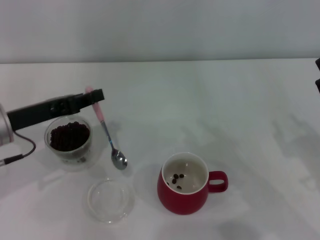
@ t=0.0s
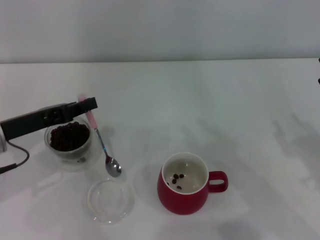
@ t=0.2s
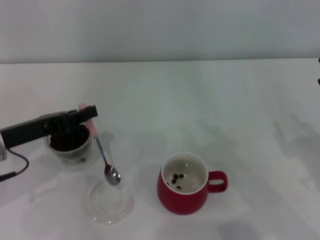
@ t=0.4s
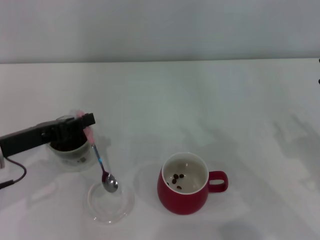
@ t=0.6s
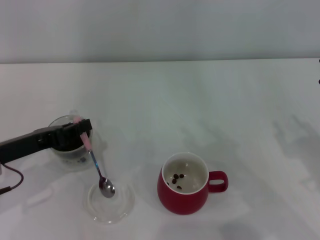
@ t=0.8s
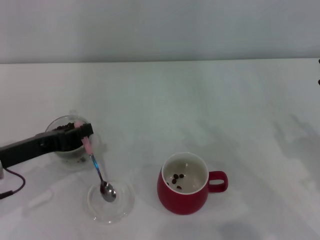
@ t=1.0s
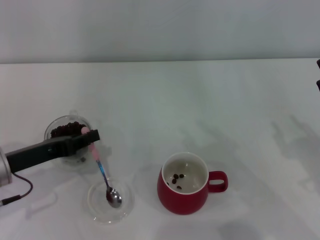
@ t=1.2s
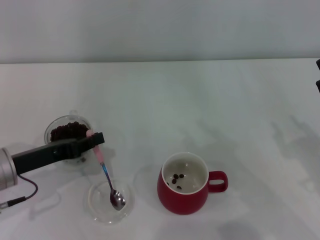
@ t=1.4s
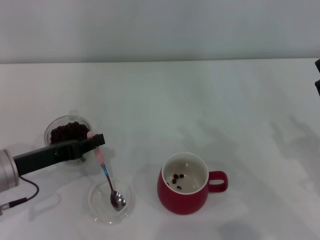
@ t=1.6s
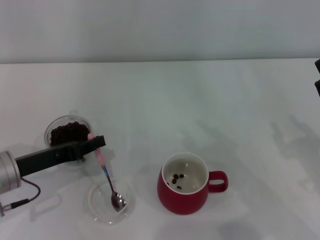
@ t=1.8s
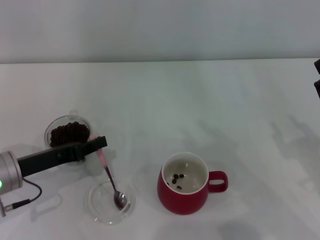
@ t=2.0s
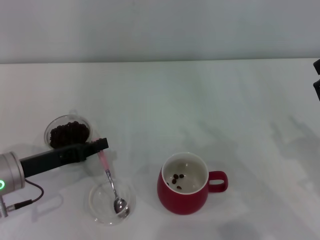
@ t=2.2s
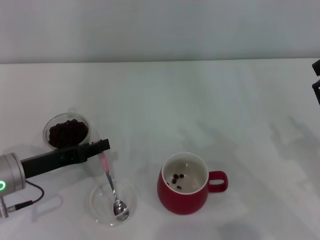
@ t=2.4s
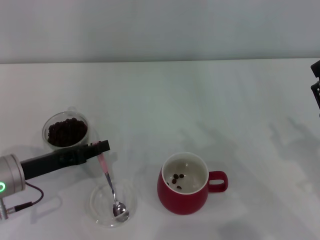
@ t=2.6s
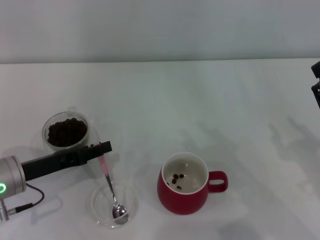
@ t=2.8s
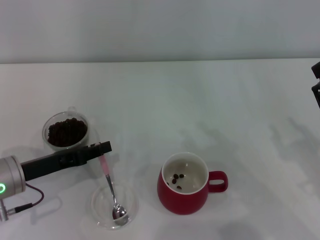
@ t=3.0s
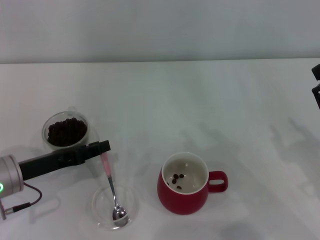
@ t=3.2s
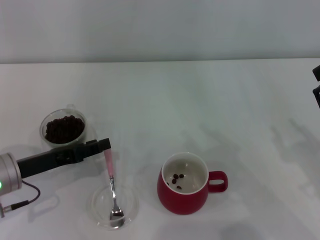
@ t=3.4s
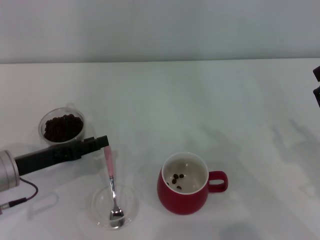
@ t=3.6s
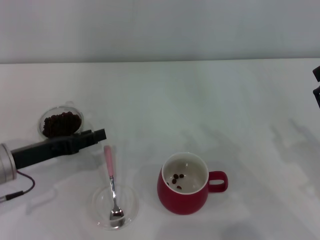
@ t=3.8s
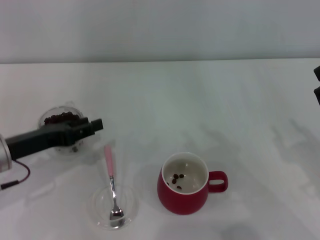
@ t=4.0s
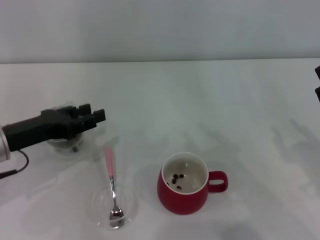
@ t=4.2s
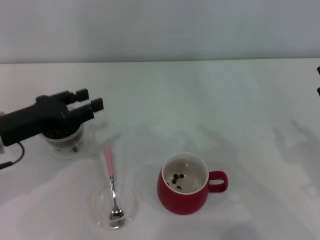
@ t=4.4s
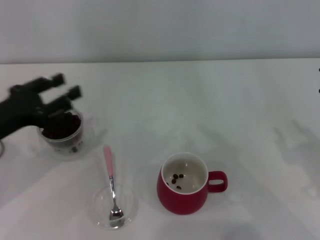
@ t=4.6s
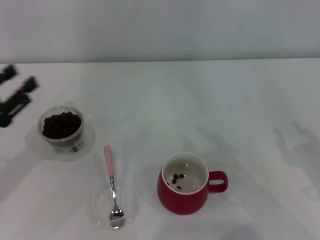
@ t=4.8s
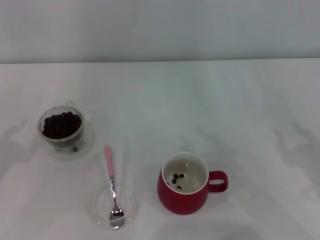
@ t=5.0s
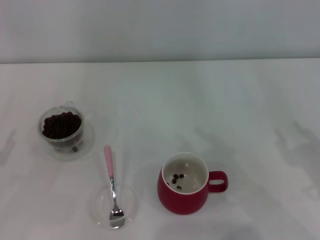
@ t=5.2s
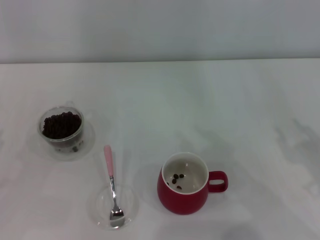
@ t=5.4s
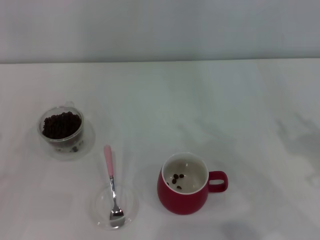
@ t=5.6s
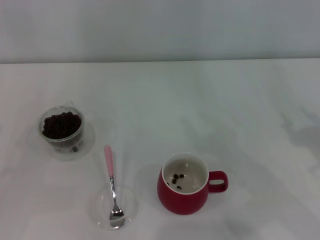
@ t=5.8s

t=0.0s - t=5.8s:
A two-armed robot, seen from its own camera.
Task of the whole recording: Use a pink spoon to take out the coffee beans from the glass and pour them into the red cup.
t=0.0s - t=1.4s: The left gripper moves roughly 5 cm.
t=1.4s - t=2.8s: The grippers make only small movements.
t=2.8s - t=4.4s: The left gripper shifts about 5 cm upward, and opens its fingers.
t=4.4s - t=5.8s: The left gripper travels to the left and backward by about 10 cm.
